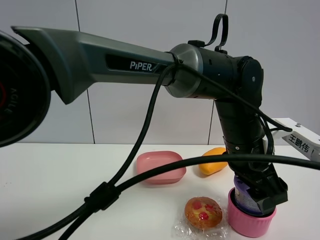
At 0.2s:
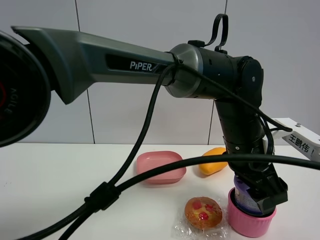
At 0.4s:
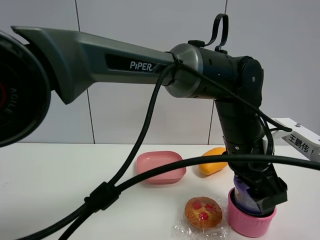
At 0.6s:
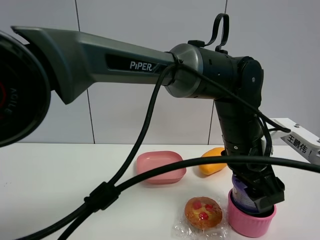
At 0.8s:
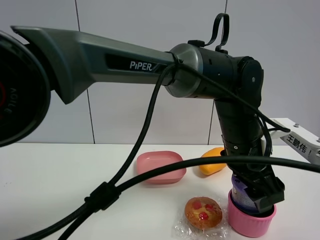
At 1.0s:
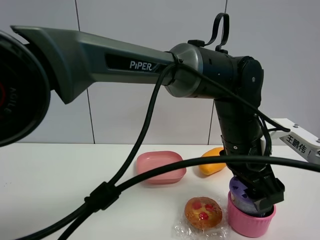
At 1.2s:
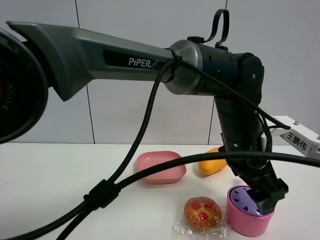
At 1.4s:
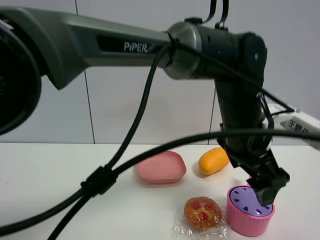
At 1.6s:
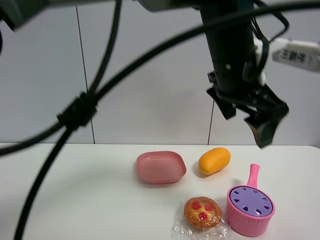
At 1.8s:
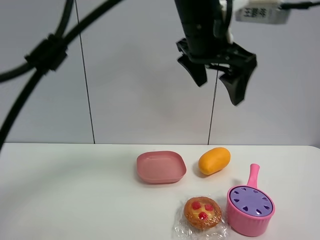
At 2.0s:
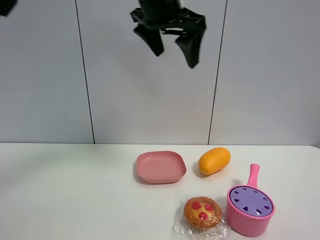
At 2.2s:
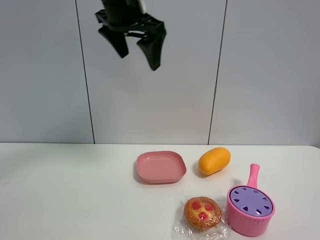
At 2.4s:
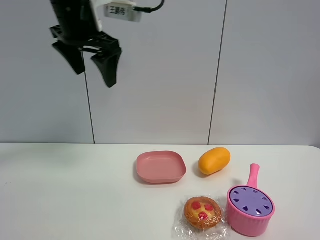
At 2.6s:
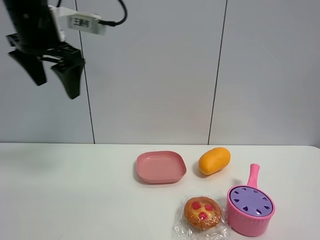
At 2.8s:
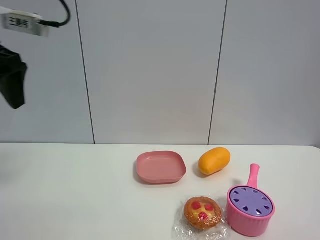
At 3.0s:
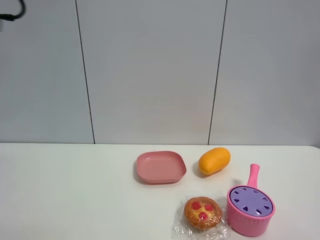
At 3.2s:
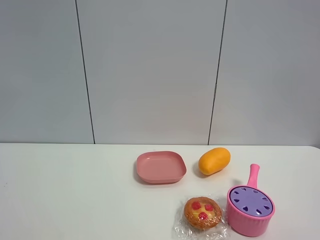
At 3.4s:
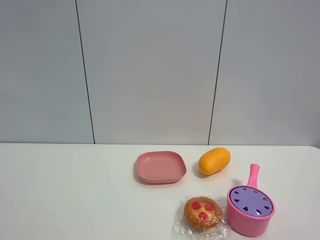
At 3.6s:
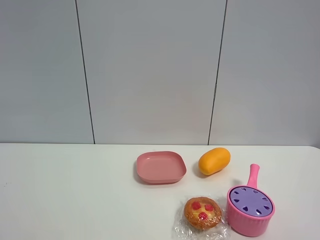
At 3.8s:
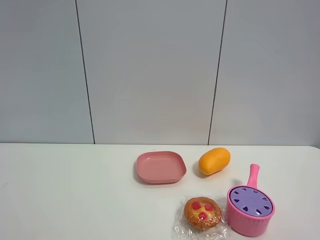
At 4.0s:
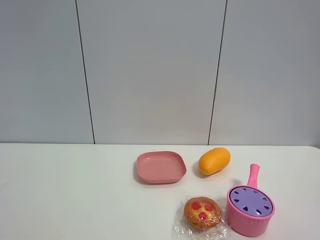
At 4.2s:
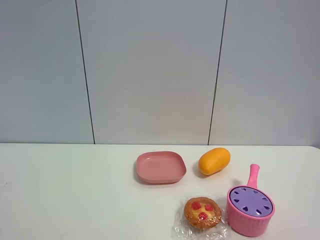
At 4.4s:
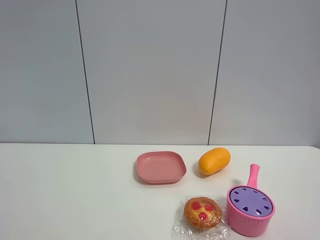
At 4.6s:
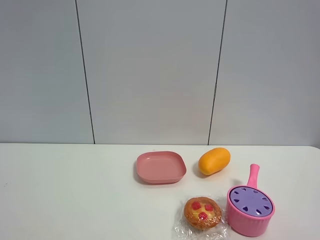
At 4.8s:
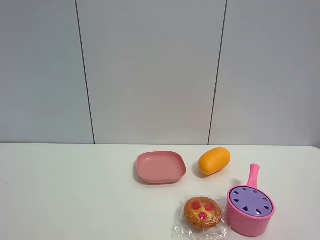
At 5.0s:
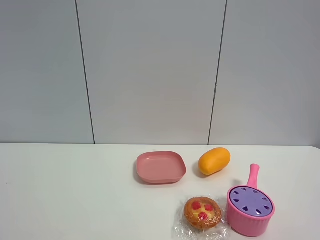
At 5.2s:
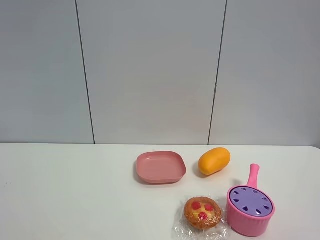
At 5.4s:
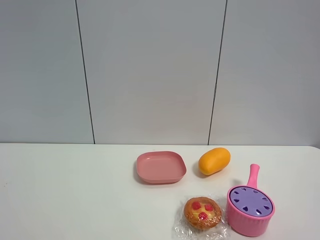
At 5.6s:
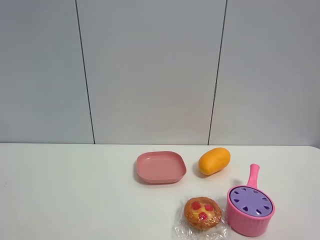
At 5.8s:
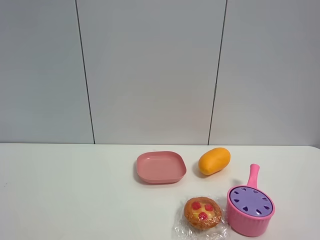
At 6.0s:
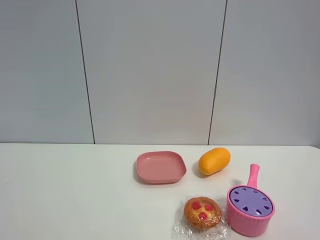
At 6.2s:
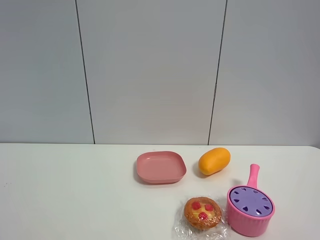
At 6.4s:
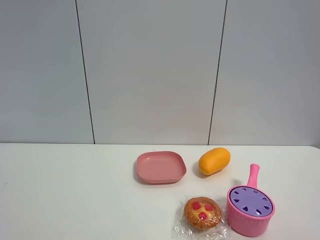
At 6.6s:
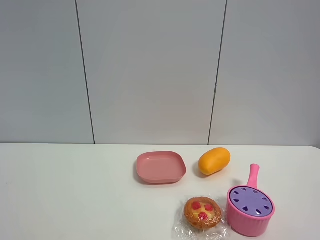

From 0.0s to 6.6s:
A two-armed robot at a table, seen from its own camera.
Task of the whole recording: the gripper move the object.
From 0.0s to 1.6s: The left gripper heads upward, covering roughly 15 cm, and opens.
From 1.6s to 3.2s: The left gripper is displaced to the left by roughly 40 cm.
From 5.0s to 6.6s: Both grippers stay put.

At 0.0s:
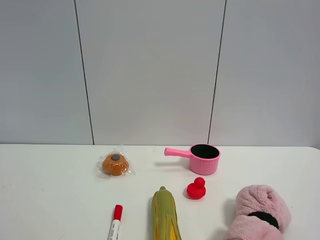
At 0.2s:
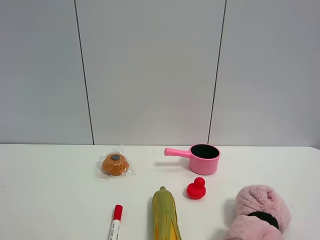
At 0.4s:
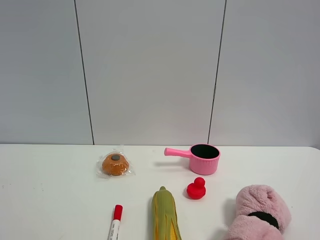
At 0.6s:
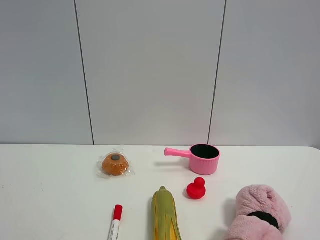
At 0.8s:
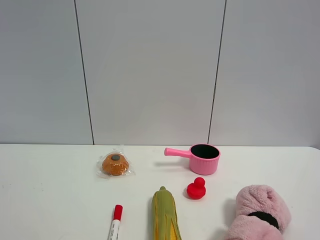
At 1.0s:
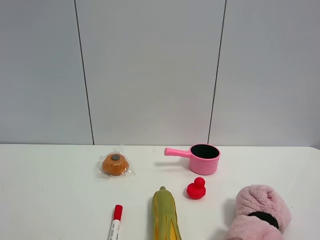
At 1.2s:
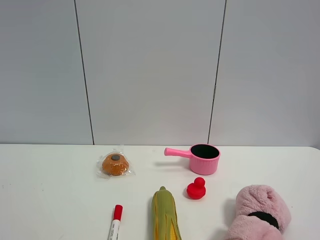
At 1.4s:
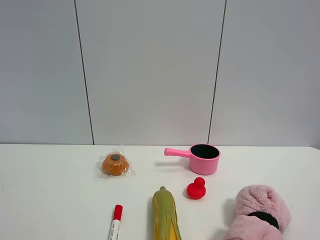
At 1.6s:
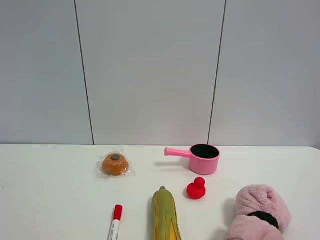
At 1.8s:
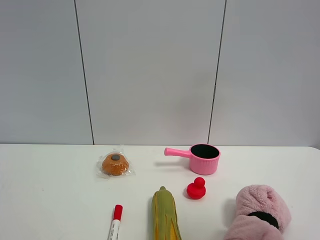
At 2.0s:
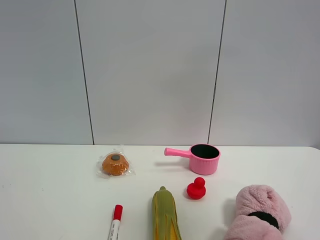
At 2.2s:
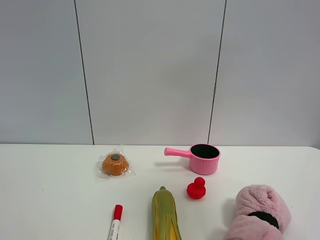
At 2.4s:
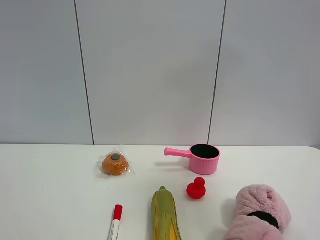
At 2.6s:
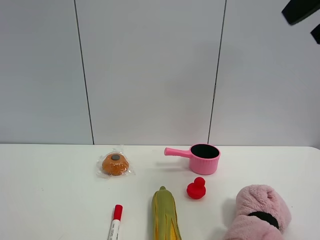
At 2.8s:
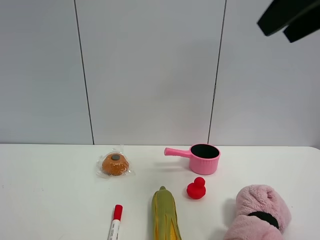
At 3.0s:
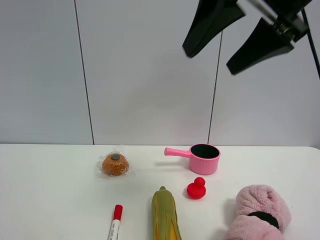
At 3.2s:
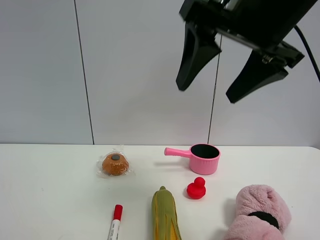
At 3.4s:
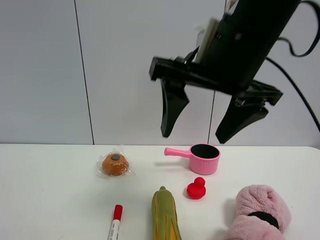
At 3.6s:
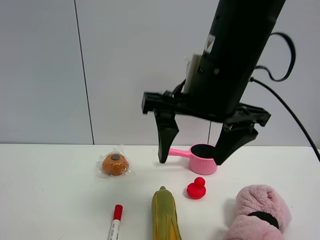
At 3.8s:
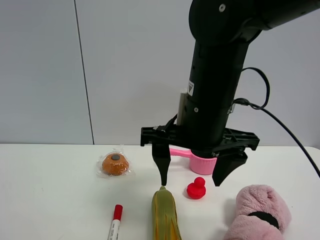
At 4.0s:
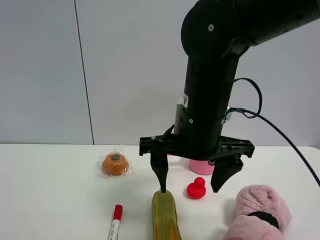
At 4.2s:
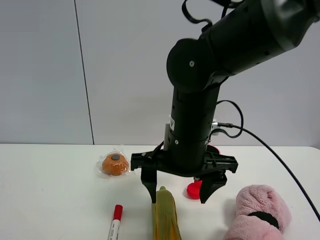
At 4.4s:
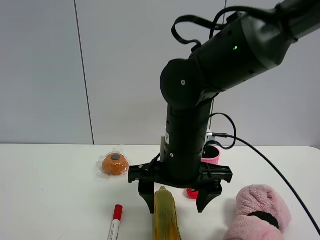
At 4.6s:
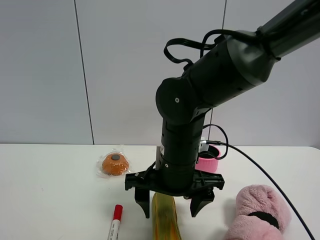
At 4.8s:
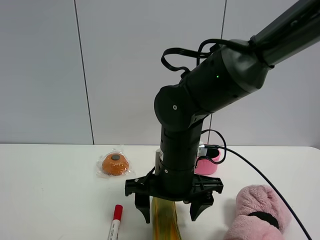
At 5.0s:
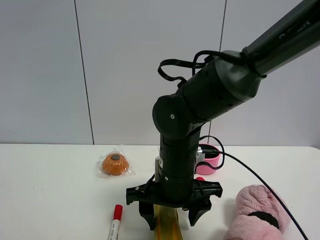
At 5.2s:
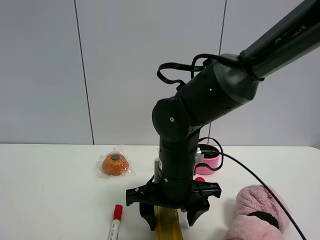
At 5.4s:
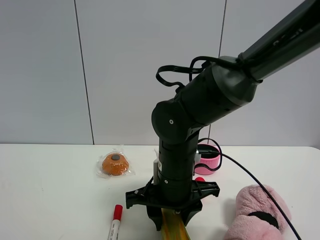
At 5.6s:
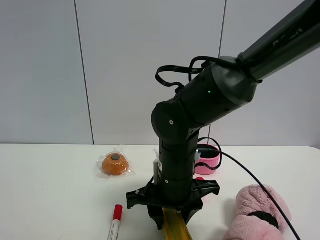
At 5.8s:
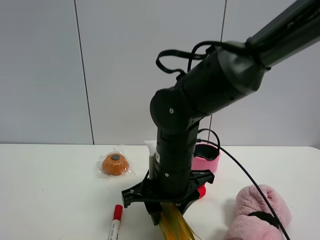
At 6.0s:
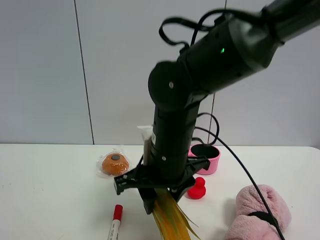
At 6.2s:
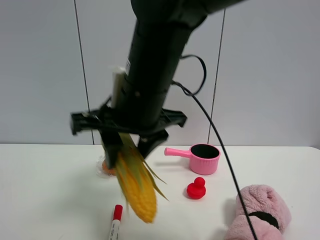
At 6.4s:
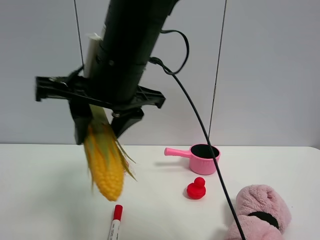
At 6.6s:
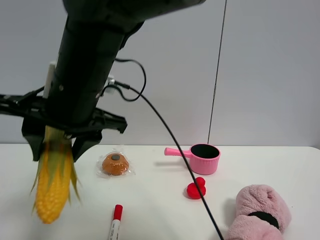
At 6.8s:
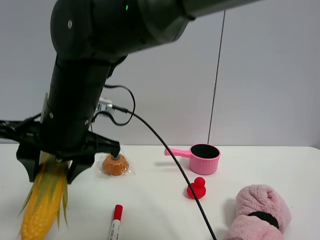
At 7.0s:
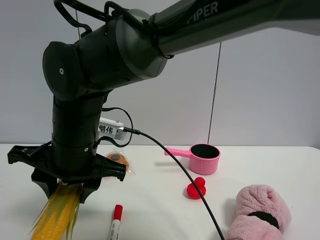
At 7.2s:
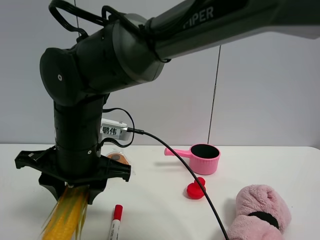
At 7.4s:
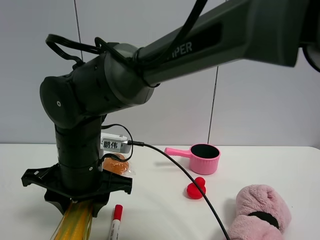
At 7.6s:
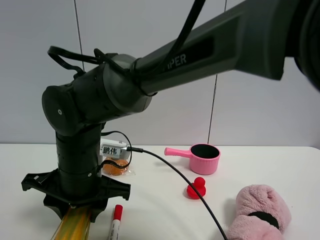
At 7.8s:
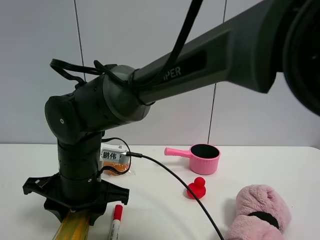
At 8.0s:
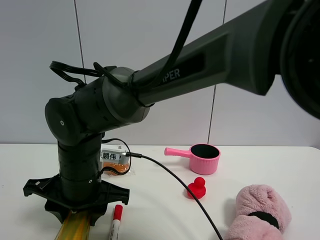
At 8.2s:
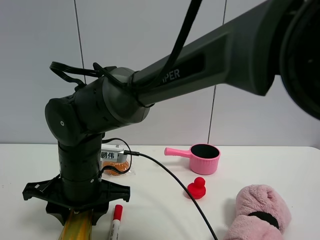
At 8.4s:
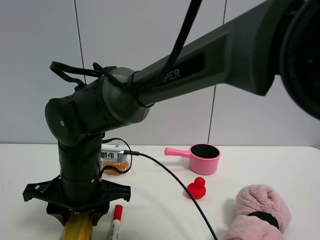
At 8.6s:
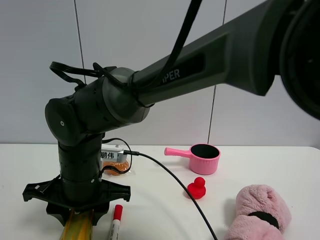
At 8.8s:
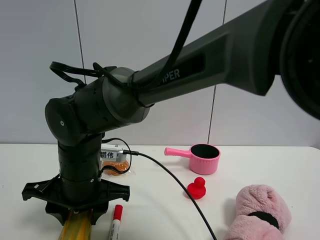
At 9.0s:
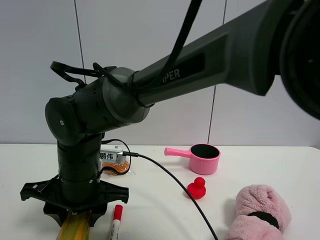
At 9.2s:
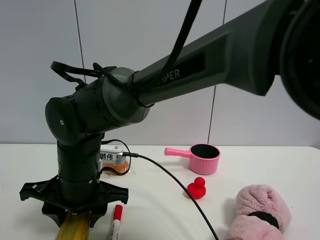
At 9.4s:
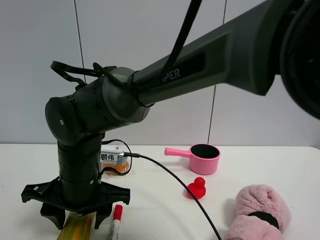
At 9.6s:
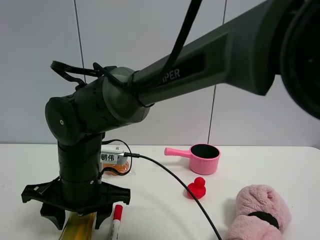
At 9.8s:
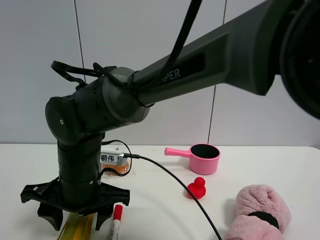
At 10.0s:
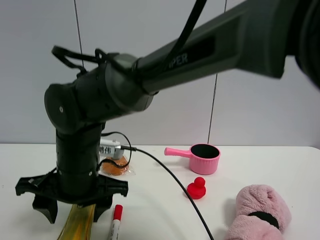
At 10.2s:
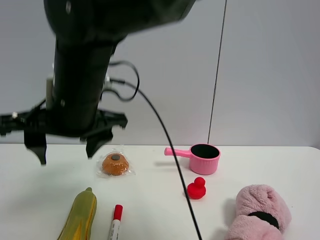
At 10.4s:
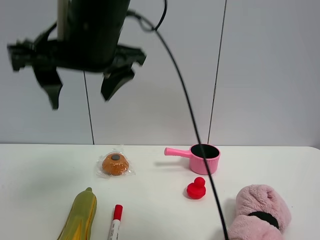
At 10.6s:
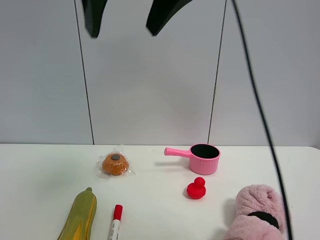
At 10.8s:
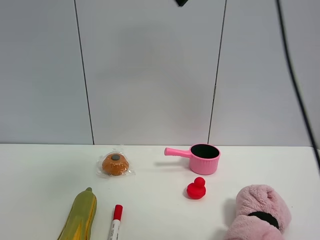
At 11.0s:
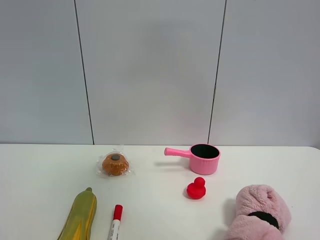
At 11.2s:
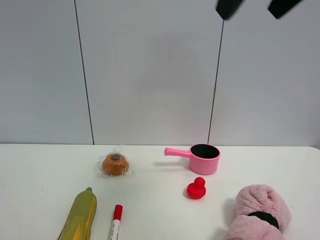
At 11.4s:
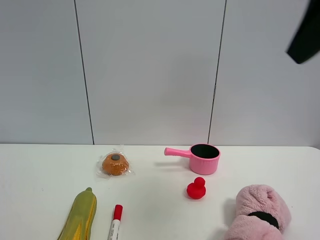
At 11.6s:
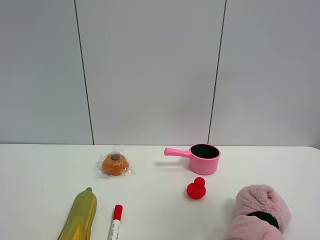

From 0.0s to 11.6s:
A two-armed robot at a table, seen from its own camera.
Task of the whole recording: the gripper move the object.
Step, from 0.0s to 5.4s: Grasp the corn with the right gripper.
Step, from 5.6s to 9.6s: Place the corn on the table with the right gripper.
From 0.0s to 1.4s: The two grippers keep their place.
From 1.4s to 2.8s: The right gripper travels forward, upward and to the left by about 25 cm.
From 2.8s to 4.4s: The right gripper shifts roughly 30 cm downward and to the left.
From 4.4s to 5.8s: The right gripper closes up.
From 5.8s to 7.2s: The right gripper shifts roughly 15 cm to the left, and reaches about 15 cm upward, then returns.
From 8.8s to 10.2s: The right gripper is displaced upward by roughly 15 cm, and opens its fingers.
From 10.2s to 11.6s: The right gripper heads to the right and backward, covering about 40 cm.

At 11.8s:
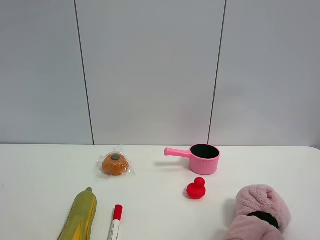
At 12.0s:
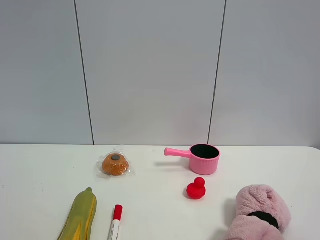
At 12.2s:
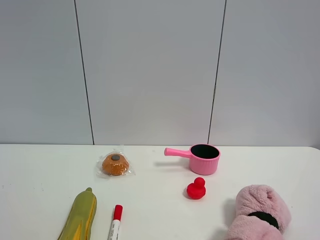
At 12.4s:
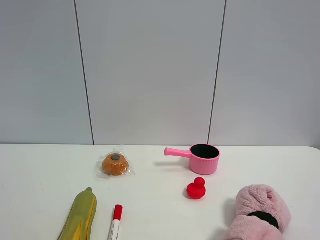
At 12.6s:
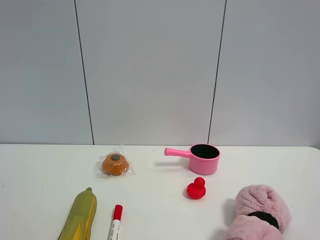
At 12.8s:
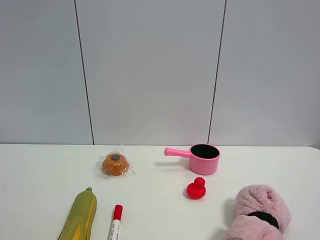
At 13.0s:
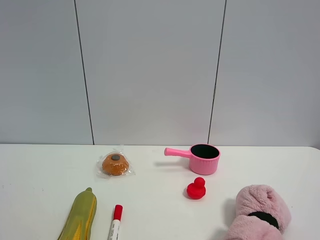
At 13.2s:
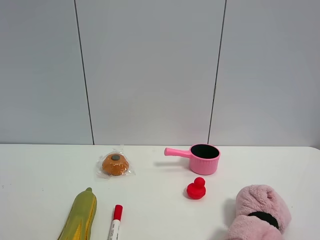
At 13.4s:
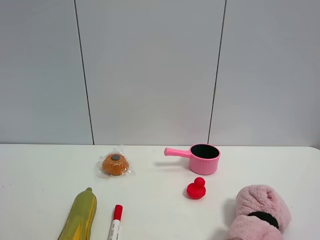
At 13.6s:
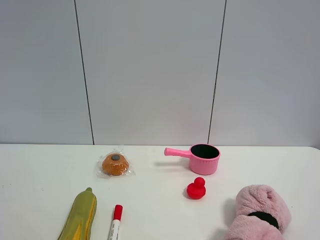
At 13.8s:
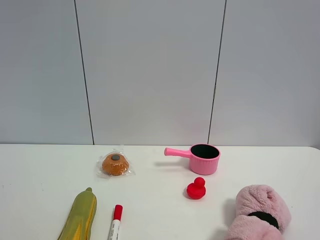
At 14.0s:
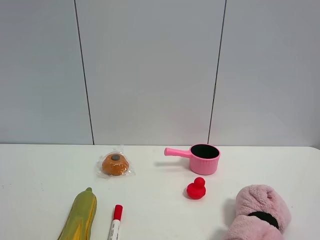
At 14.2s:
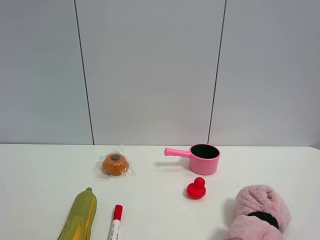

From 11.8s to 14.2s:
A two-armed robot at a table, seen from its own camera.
Task of the whole recording: the gripper move the object.
From 11.8s to 13.0s: The right gripper goes approximately 10 cm downward.
From 13.0s to 14.2s: The two grippers keep their place.

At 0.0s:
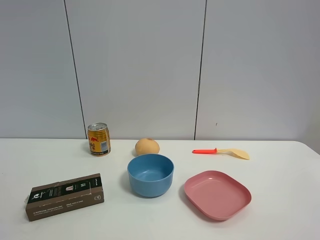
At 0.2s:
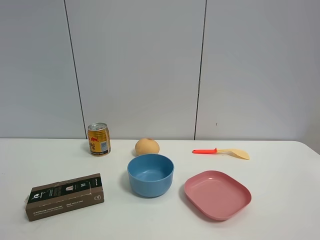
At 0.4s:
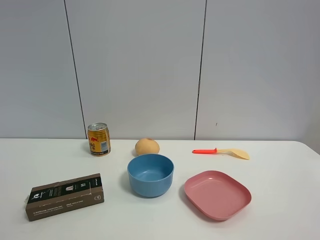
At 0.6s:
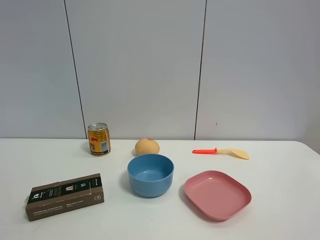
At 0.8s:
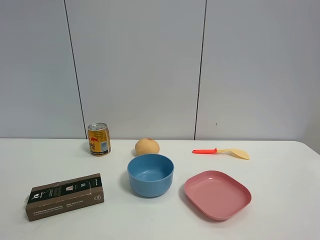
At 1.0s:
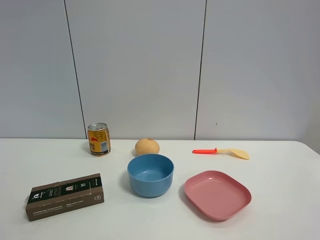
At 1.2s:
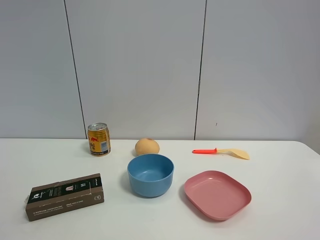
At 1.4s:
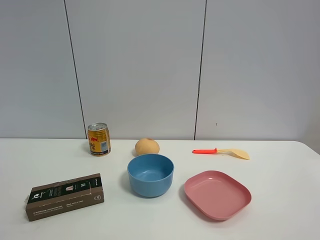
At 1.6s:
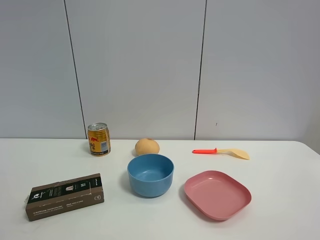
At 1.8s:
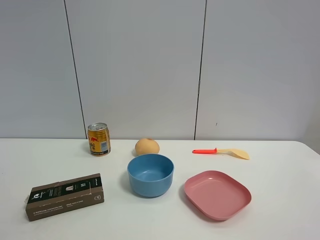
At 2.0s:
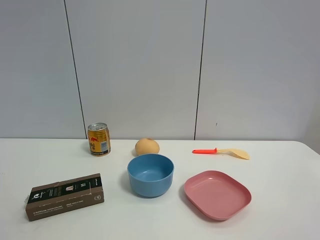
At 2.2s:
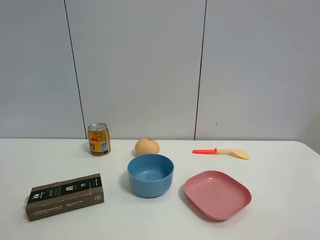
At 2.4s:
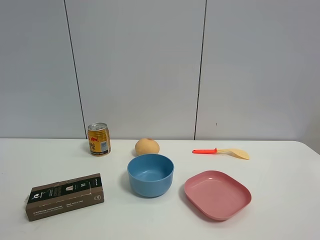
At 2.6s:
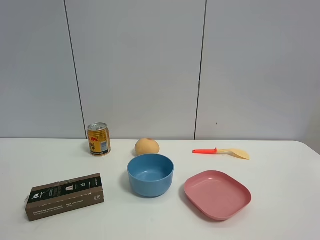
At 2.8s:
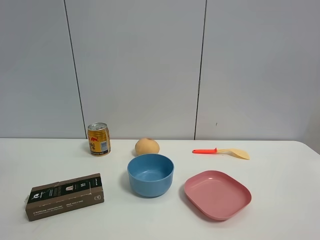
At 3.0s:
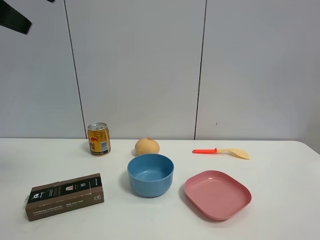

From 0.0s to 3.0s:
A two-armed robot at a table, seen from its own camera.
Task of the whole recording: the gripper move the object.
From 0.0s to 1.6s: Both grippers stay about where they are.
From 1.6s to 3.0s: The left gripper travels forward and upward by roughly 30 cm.
